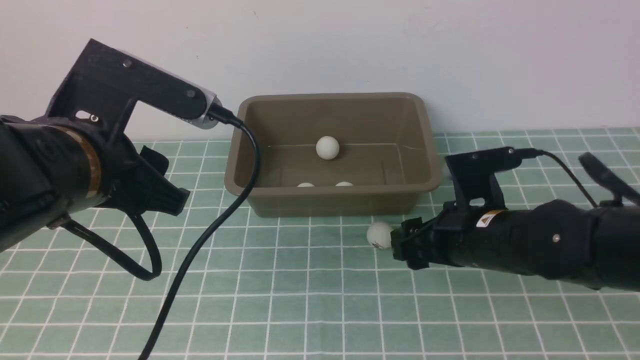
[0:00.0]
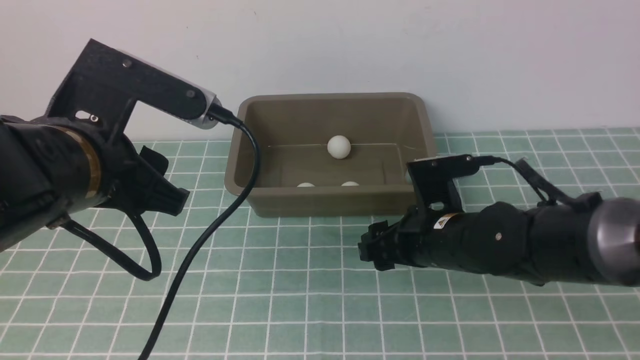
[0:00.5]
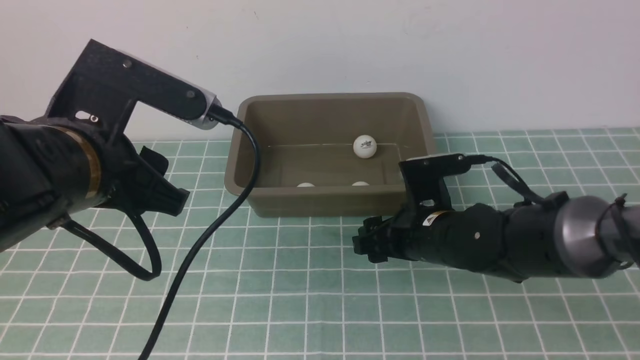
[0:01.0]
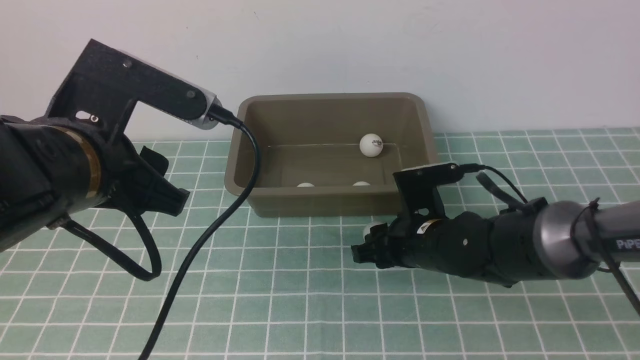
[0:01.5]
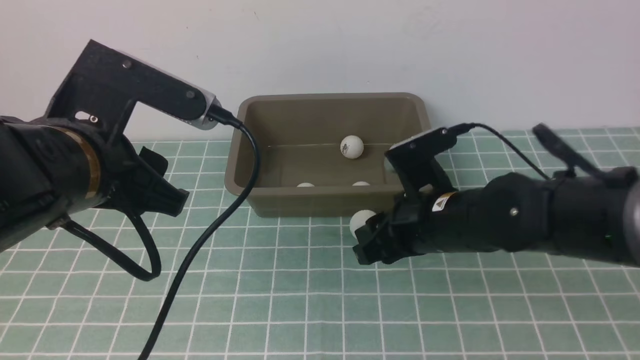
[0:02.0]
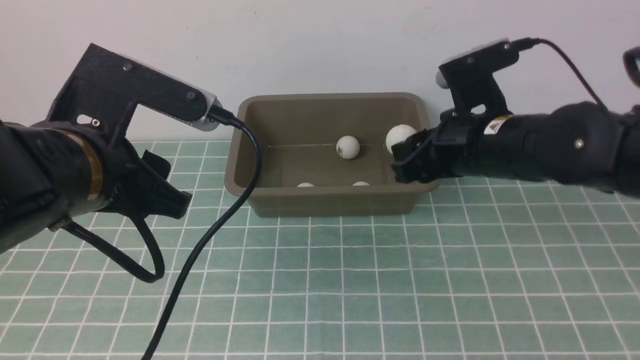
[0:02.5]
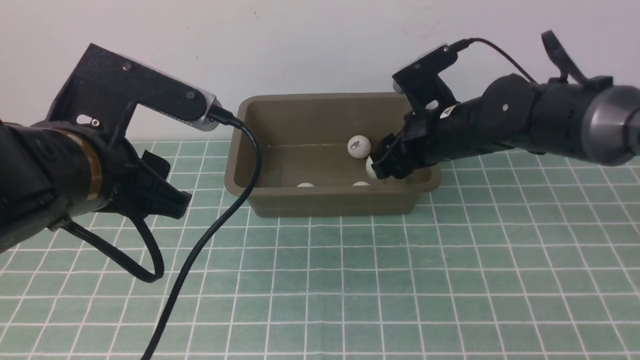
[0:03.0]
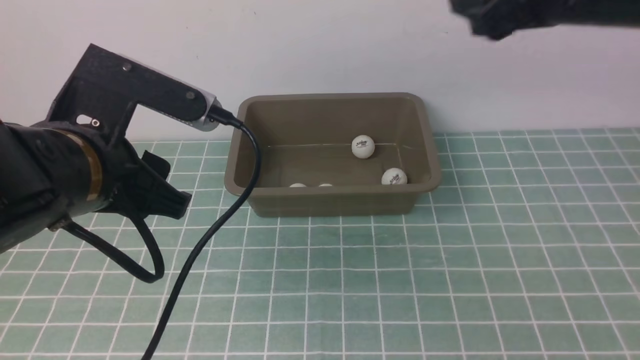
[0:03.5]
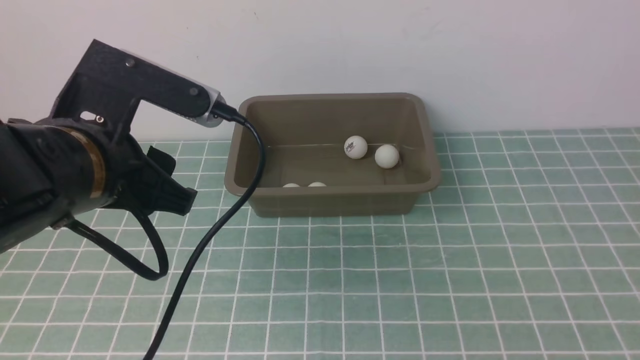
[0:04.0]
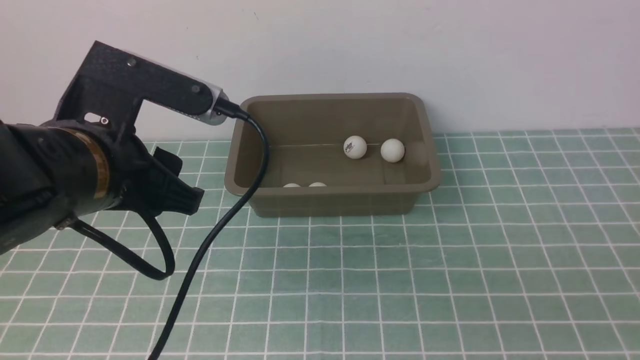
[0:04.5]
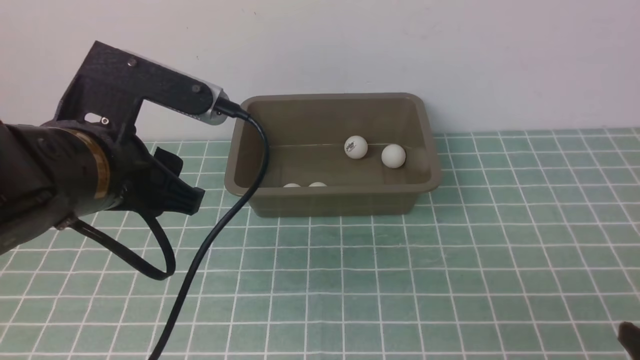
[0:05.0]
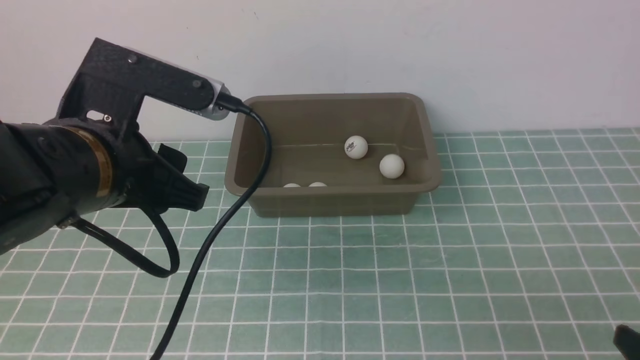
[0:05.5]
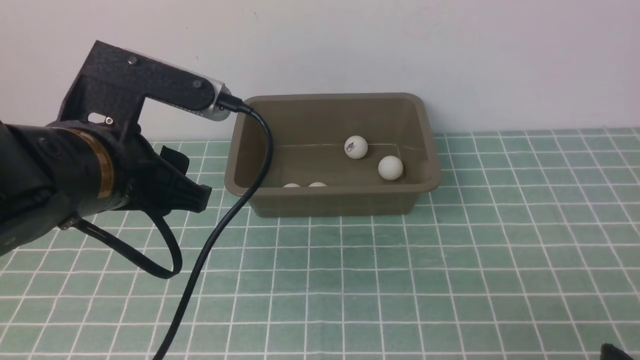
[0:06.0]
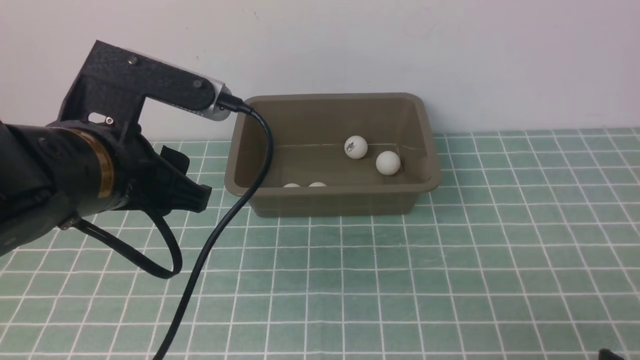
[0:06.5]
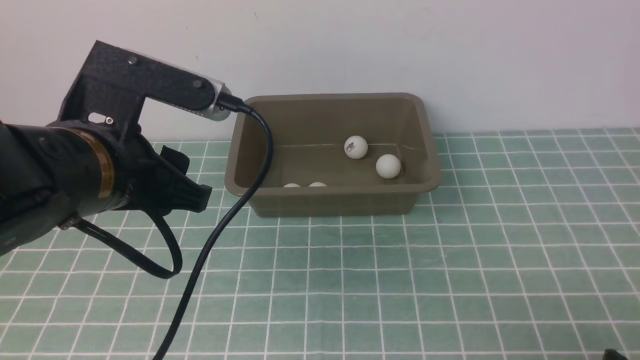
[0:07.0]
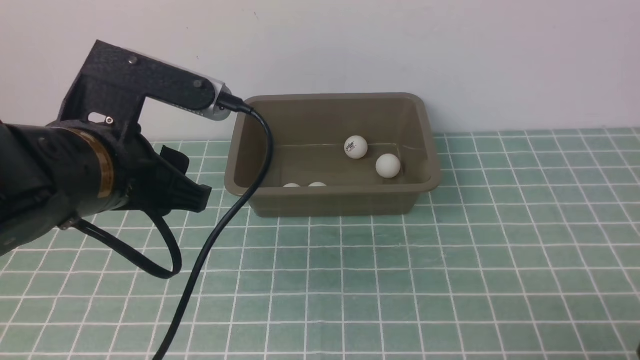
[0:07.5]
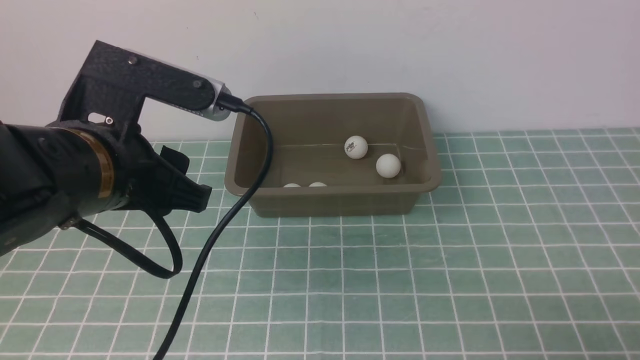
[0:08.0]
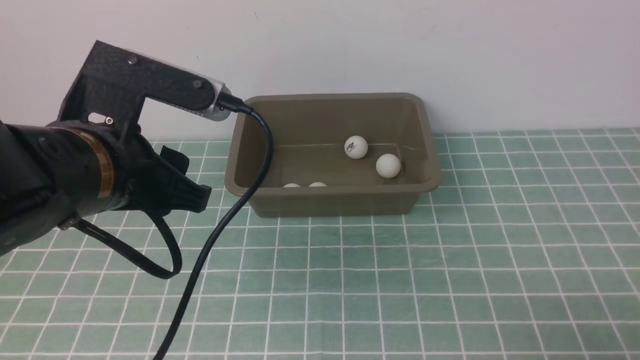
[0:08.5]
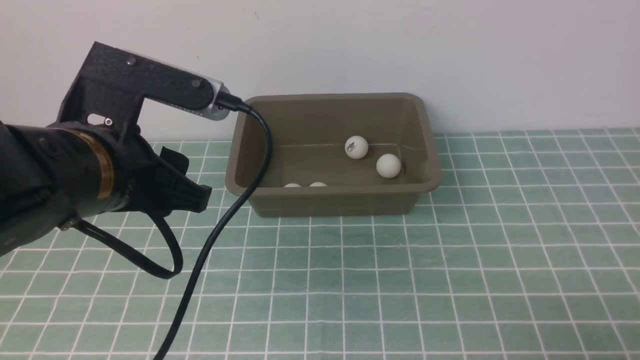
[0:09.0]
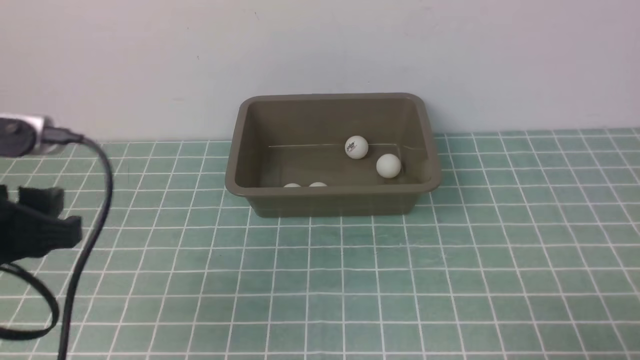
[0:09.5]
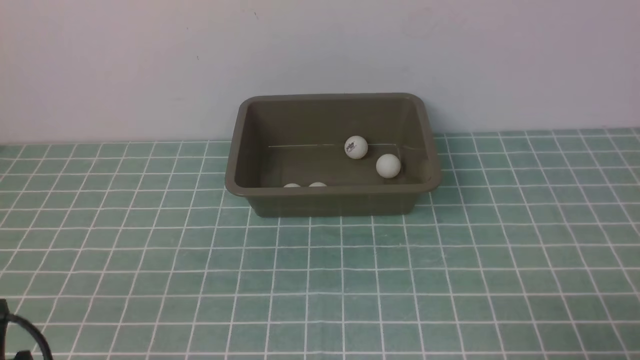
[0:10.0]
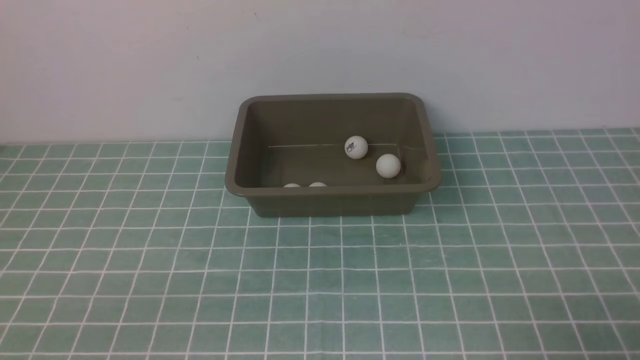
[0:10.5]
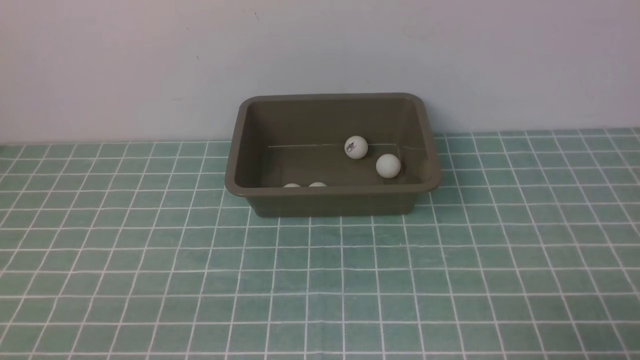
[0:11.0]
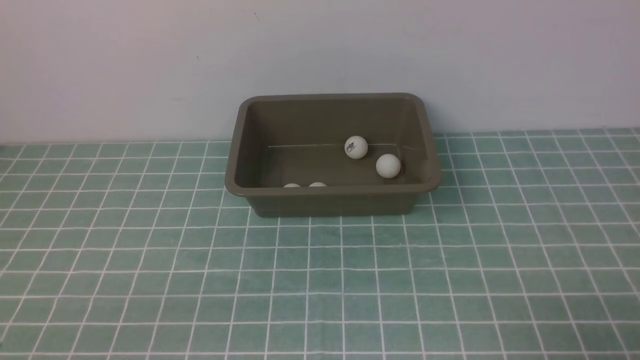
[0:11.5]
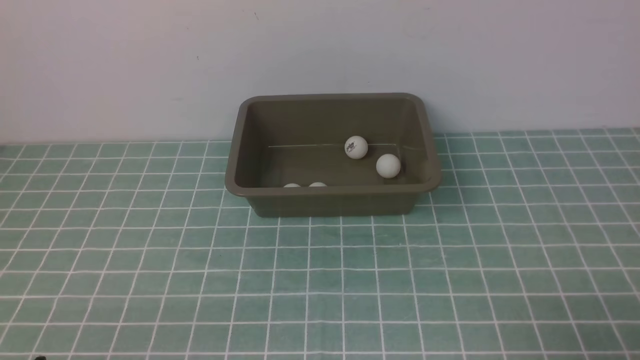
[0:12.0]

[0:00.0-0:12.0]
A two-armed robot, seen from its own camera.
Step, 0:00.0 to 0:02.0: use the right arm to clamp the table tennis ball closest to it.
Step, 0:02.5 to 0:03.0: use the right arm to put the table tennis ball into the box.
0:00.0 to 0:02.0: The right gripper goes approximately 10 cm upward and forward, and closes.
0:02.0 to 0:04.0: The right gripper travels backward and to the right by approximately 35 cm, and opens up.
0:04.0 to 0:06.0: The right gripper goes about 5 cm downward.
0:08.0 to 0:10.0: The left gripper is displaced backward, downward and to the left by about 25 cm.

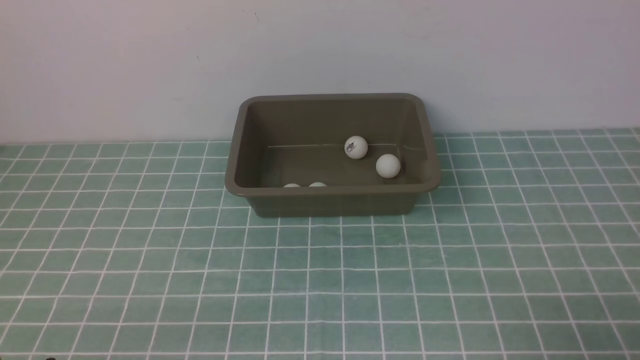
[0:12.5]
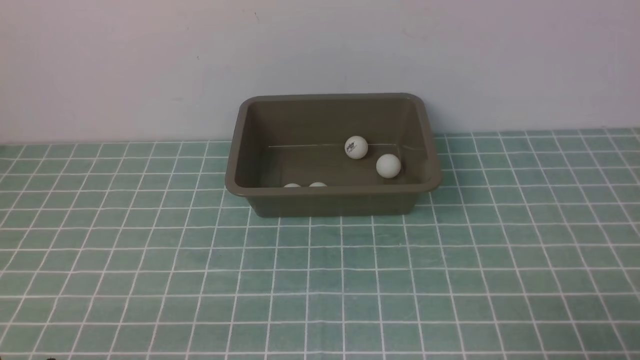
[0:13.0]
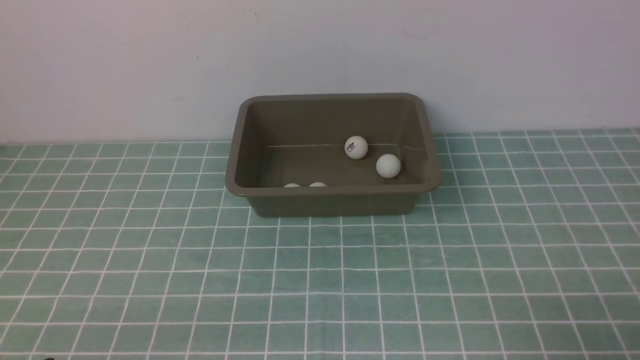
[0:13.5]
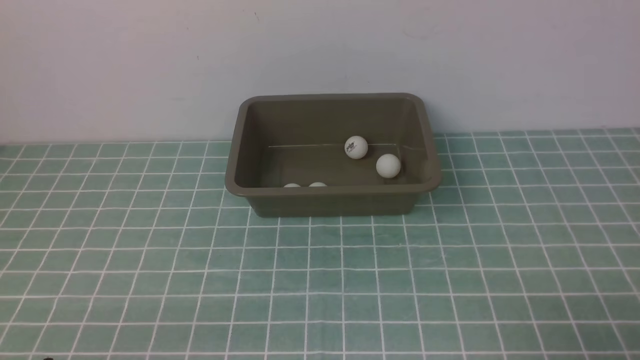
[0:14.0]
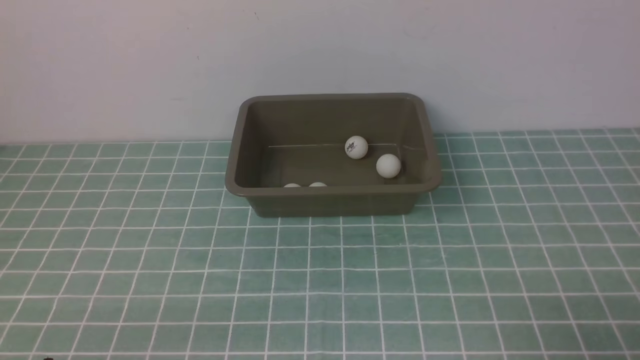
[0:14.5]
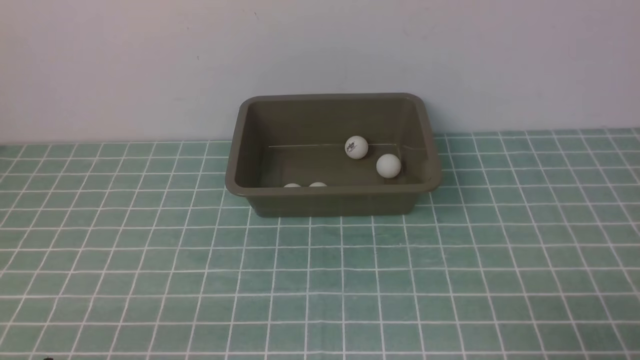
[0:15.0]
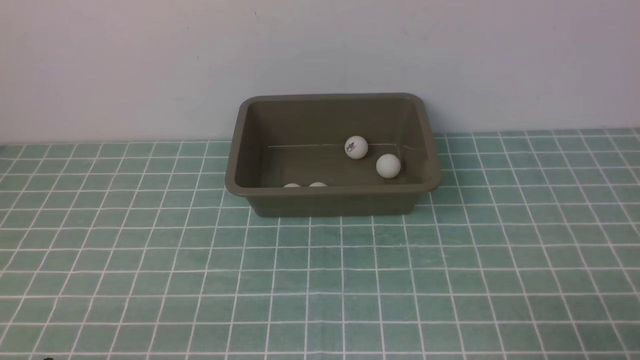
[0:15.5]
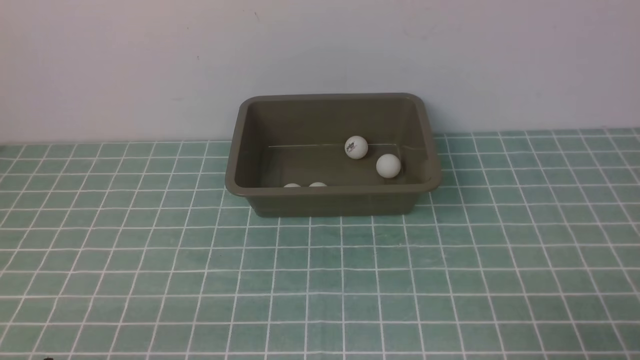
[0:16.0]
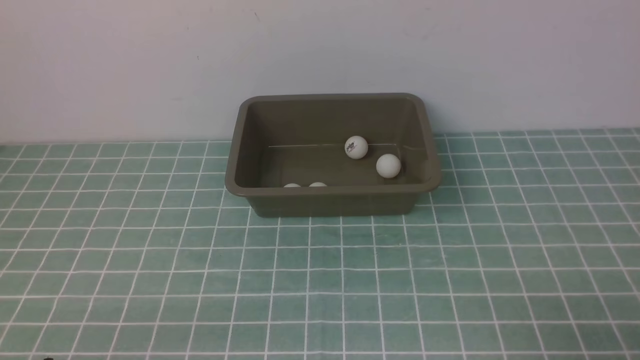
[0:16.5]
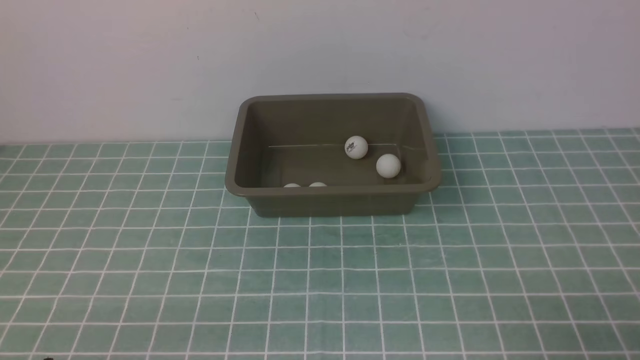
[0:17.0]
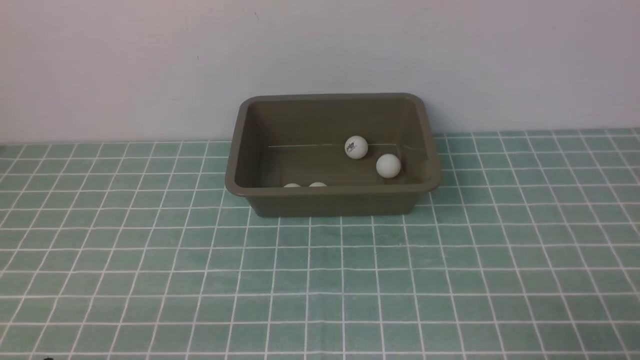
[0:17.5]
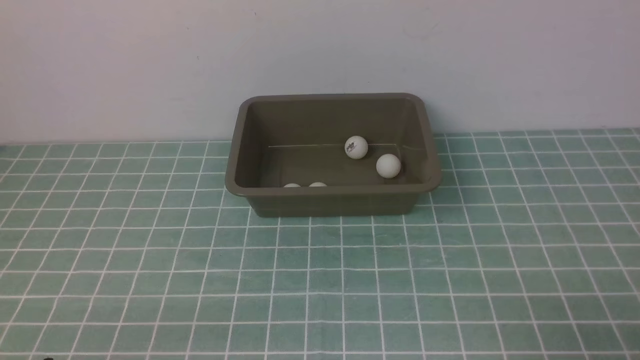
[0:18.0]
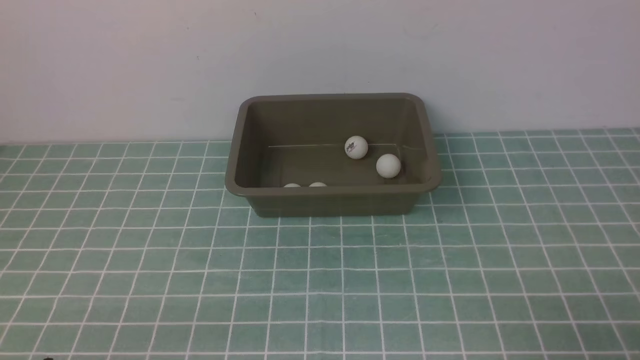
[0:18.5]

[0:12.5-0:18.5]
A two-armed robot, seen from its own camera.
0:12.5 to 0:14.5: Neither gripper changes place.
0:16.5 to 0:18.5: Neither gripper changes place.
